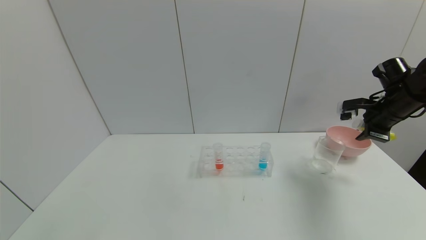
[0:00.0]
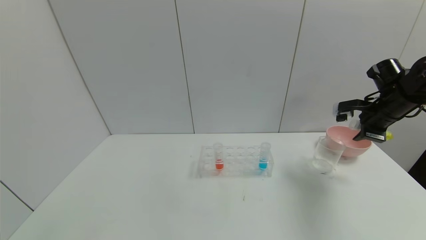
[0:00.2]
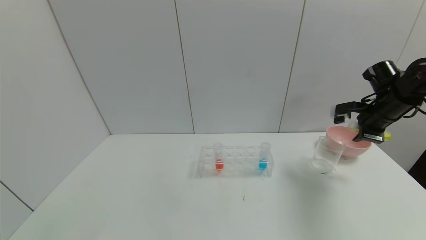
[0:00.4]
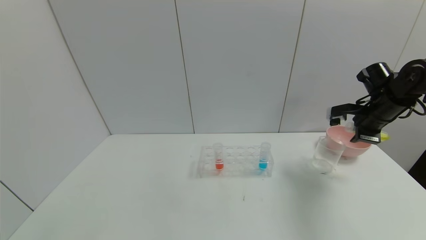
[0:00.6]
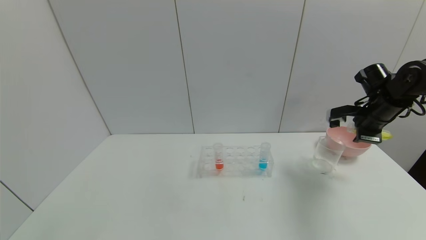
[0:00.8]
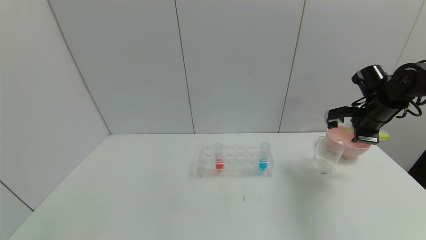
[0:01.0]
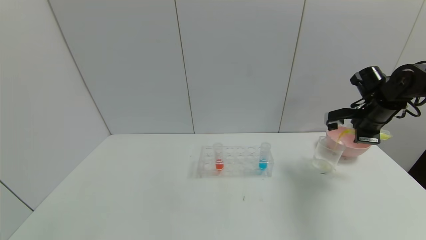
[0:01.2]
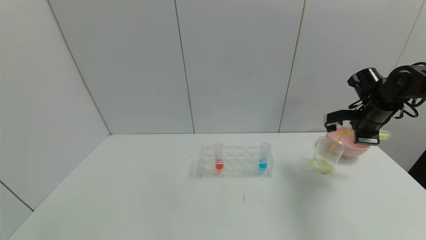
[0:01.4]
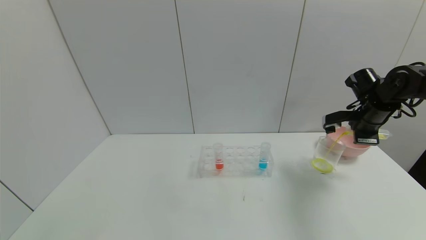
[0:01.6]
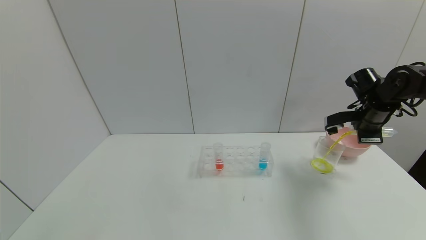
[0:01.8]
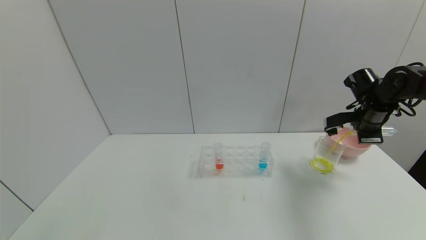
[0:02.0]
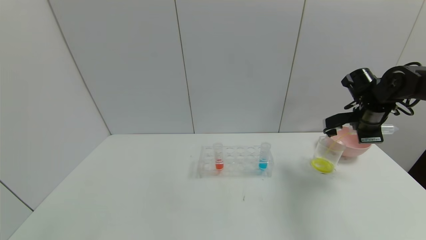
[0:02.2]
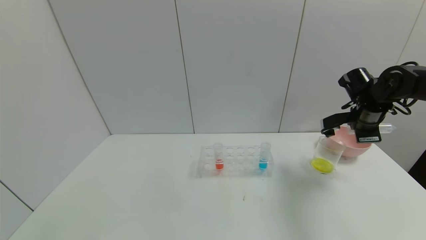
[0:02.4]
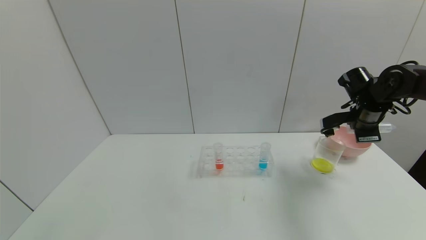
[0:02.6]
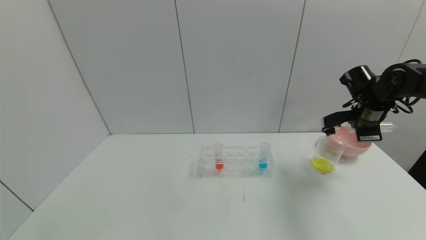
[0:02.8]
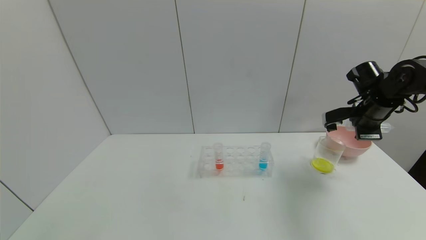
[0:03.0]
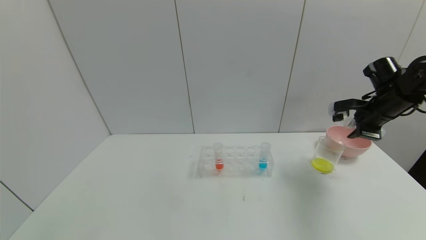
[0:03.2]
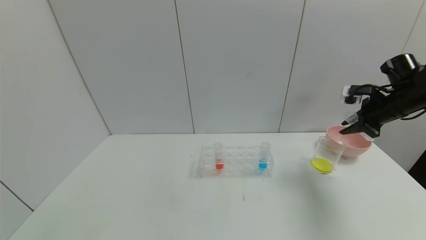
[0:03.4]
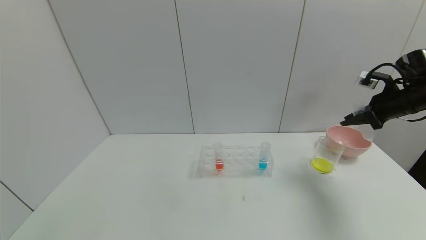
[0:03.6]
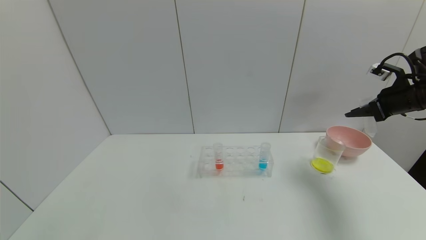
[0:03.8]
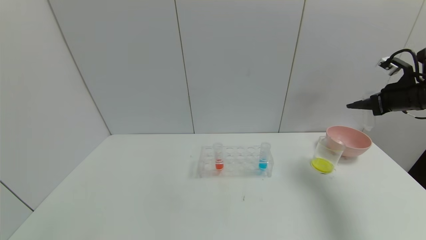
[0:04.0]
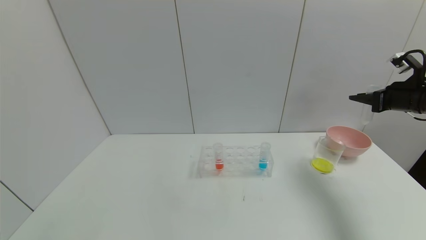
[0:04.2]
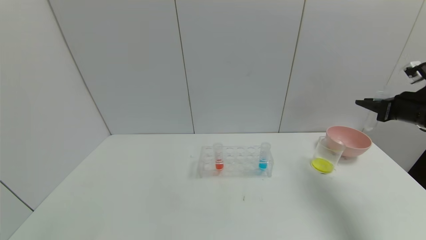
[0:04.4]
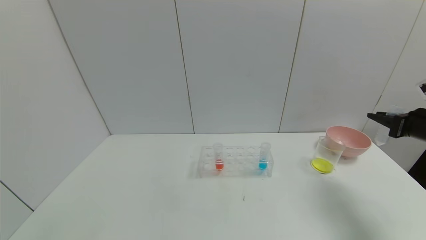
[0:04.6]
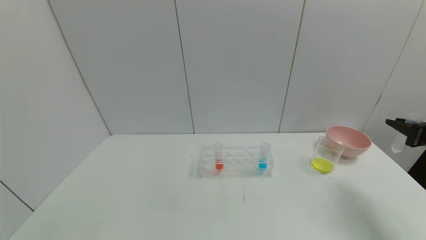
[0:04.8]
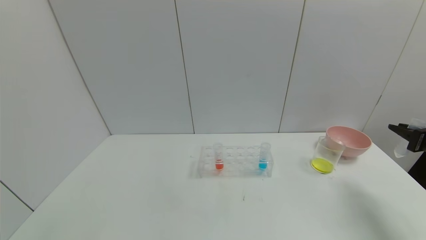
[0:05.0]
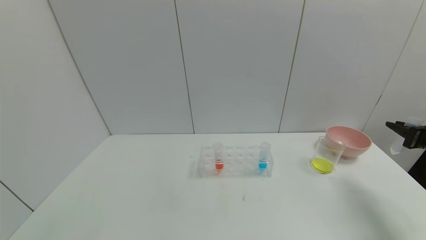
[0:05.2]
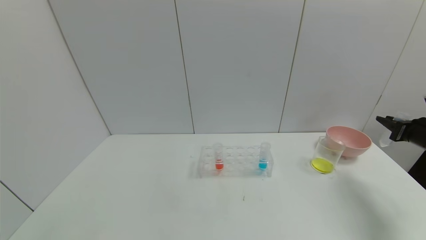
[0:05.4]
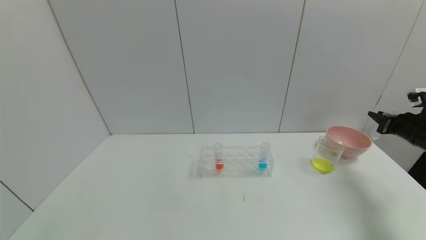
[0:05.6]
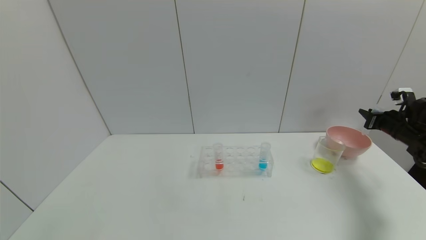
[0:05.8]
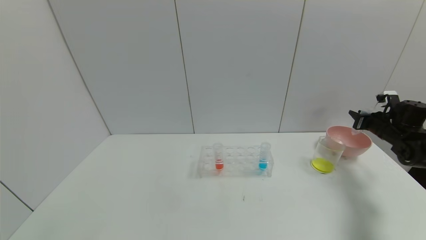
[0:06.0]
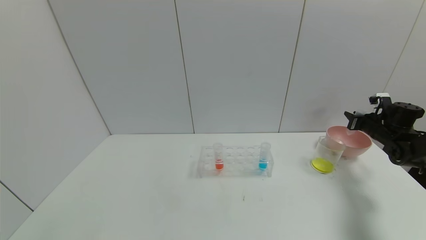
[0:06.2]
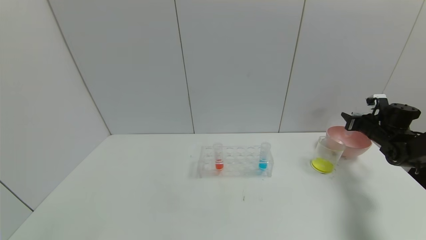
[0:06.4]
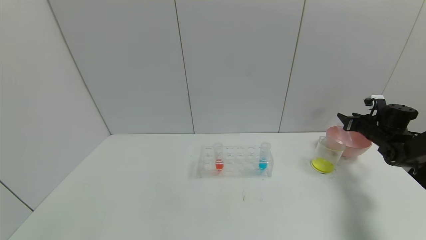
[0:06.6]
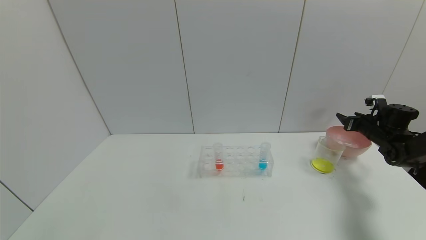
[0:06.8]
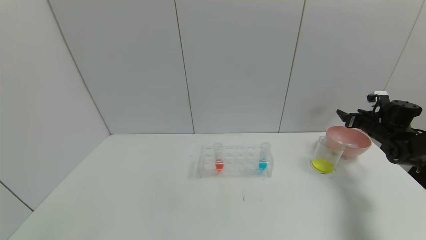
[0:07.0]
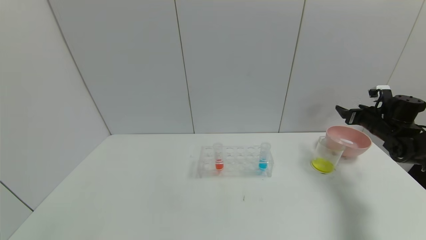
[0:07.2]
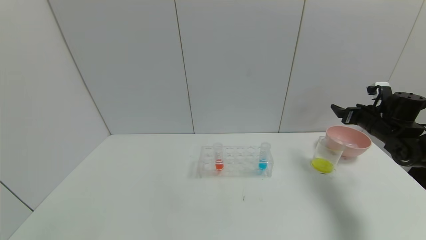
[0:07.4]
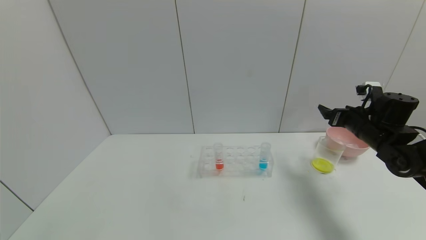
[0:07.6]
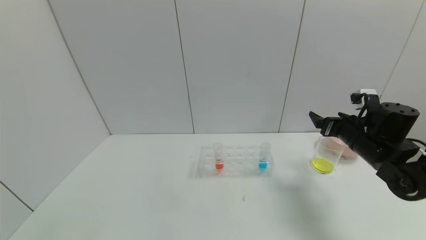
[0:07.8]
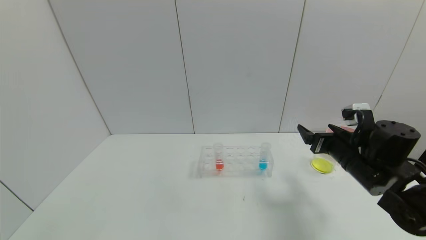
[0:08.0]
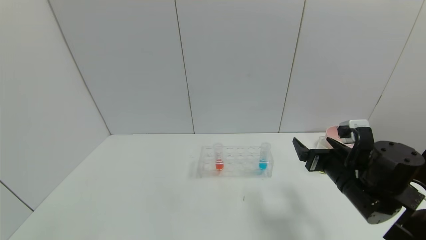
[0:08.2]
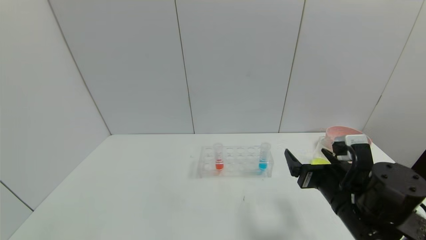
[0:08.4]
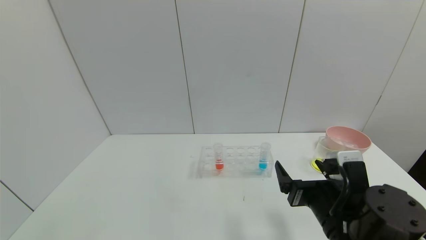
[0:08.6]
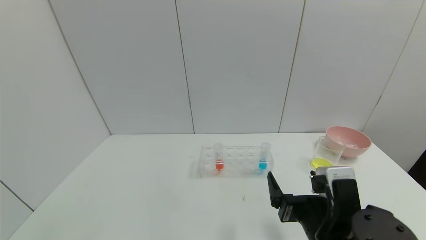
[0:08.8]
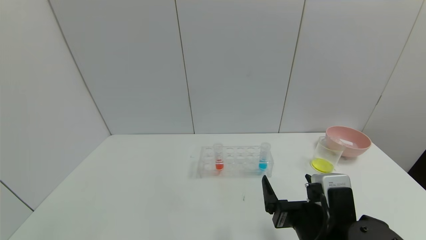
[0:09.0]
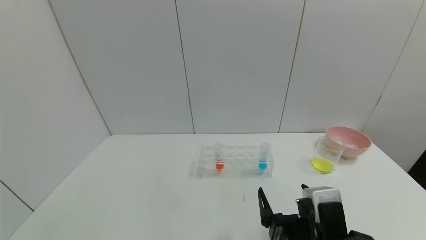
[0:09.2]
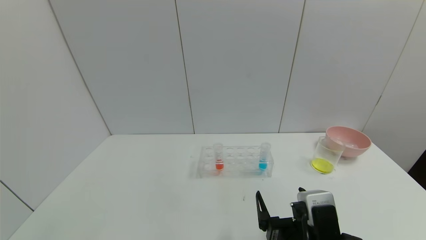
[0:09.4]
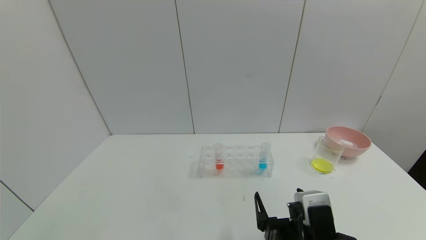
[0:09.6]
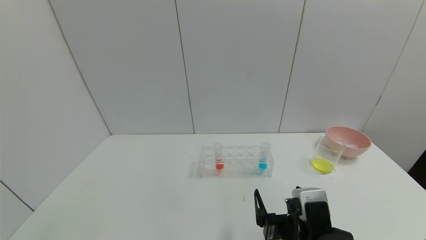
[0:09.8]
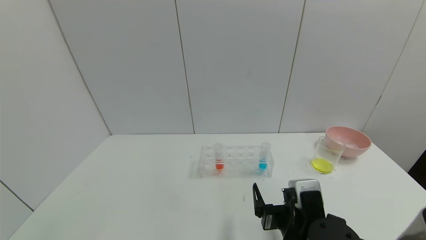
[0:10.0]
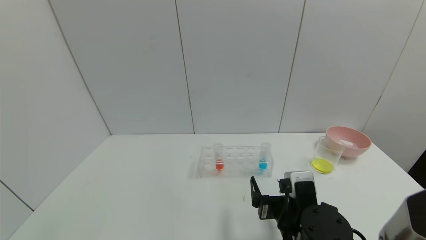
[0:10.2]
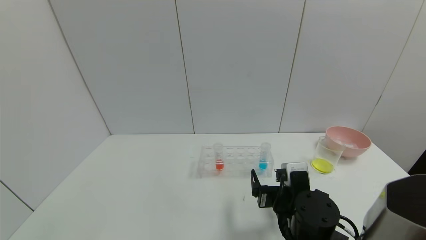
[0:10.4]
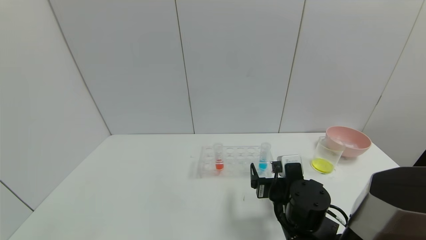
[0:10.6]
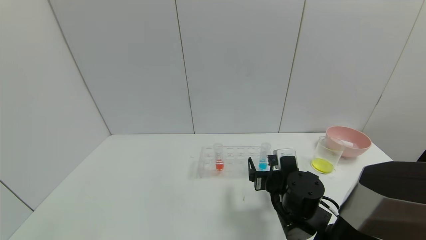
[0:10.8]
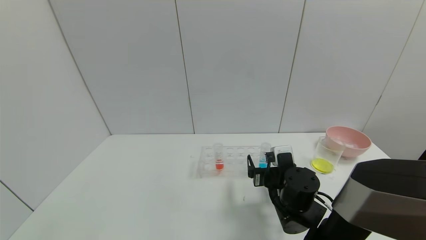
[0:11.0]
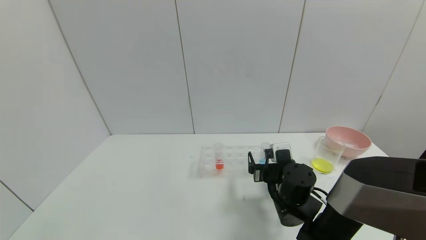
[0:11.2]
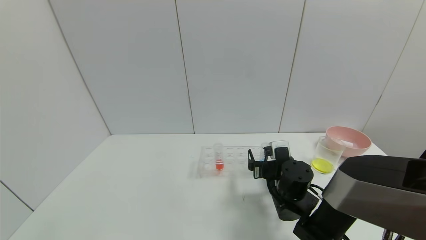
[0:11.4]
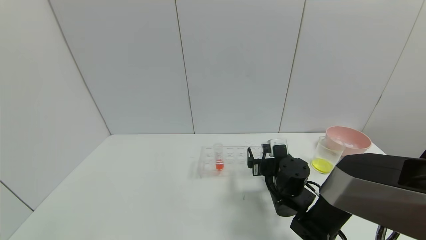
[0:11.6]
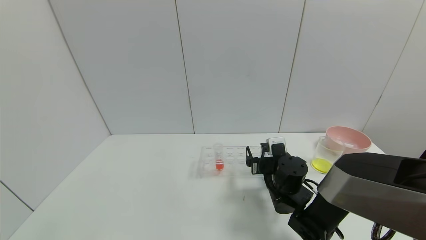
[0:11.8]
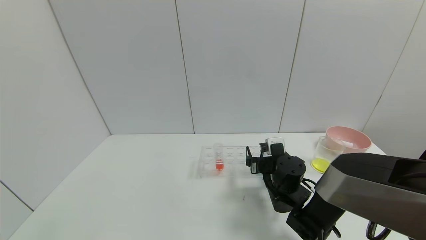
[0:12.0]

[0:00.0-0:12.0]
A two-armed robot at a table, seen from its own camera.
Task of the whole recording: pick up the test tube with yellow pigment and the test tube with blue pigment by grippers and pour them into the beaker.
Step, 0:00.0 to 0:03.0: Pour the yellow reagent into the graduated cylinder with the right gripper.
Step, 0:03.2 to 0:07.2: Place the test tube into the bowl with the right gripper.
0:00.0 to 0:01.6: The grippers move only a little.
0:01.6 to 0:03.0: The grippers move only a little.
0:03.0 to 0:04.4: The right gripper moves to the right and backward, approximately 10 cm.
0:04.4 to 0:06.0: The right gripper goes some 15 cm downward and forward.
0:06.0 to 0:07.6: The right gripper travels to the left and backward by approximately 15 cm, and opens its fingers.
0:07.6 to 0:09.0: The right gripper travels backward and to the left by about 30 cm.
0:09.0 to 0:10.4: The right gripper is displaced forward by some 5 cm.
0:10.4 to 0:12.0: The right gripper heads forward, covering about 10 cm.

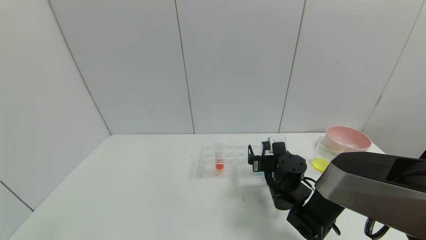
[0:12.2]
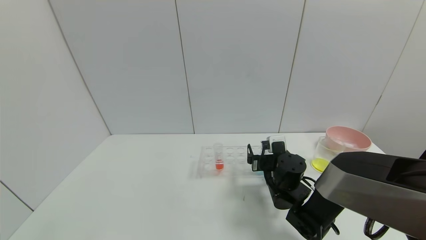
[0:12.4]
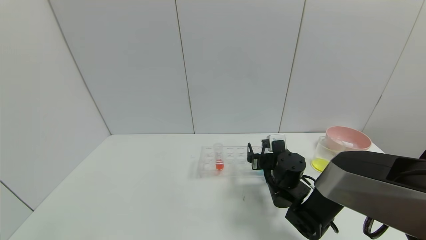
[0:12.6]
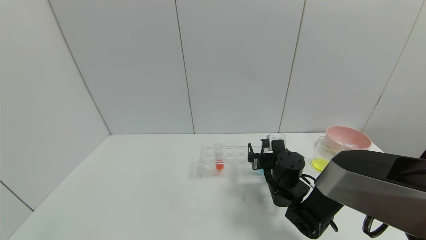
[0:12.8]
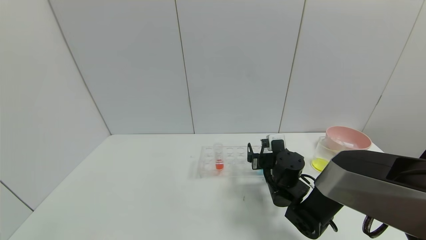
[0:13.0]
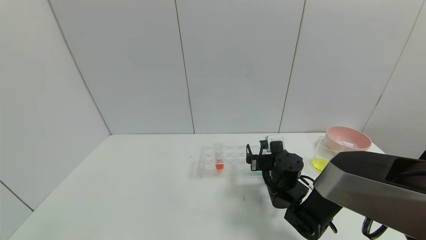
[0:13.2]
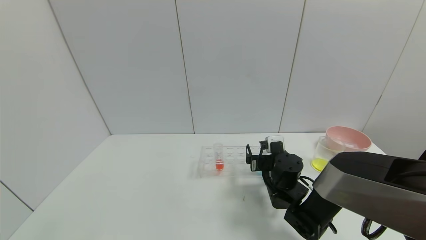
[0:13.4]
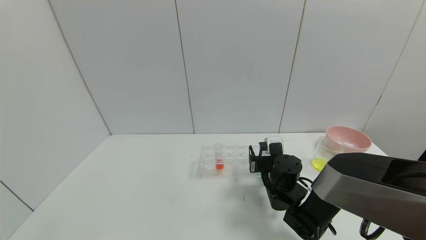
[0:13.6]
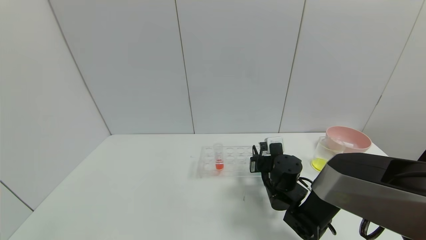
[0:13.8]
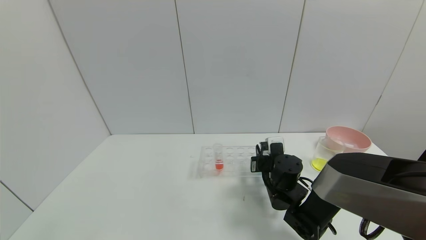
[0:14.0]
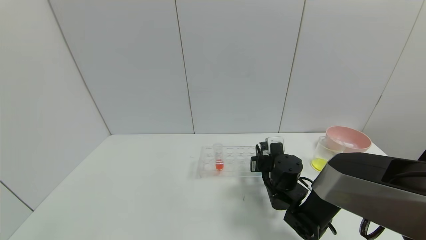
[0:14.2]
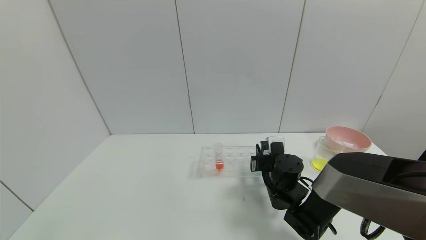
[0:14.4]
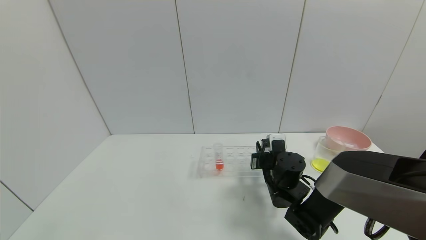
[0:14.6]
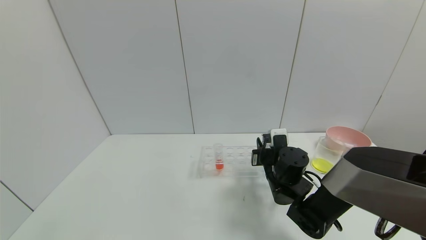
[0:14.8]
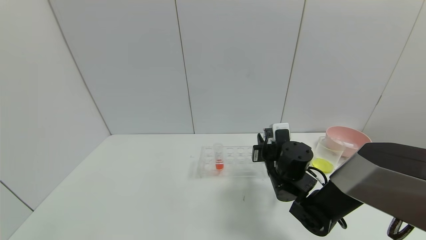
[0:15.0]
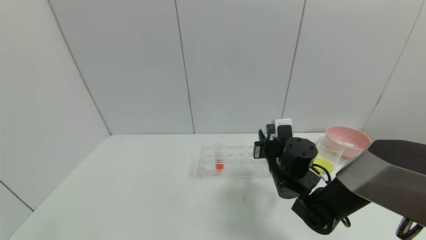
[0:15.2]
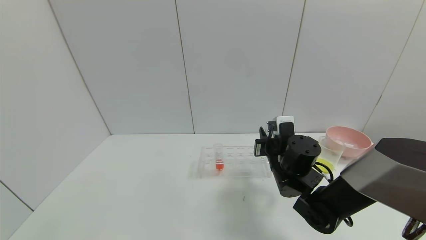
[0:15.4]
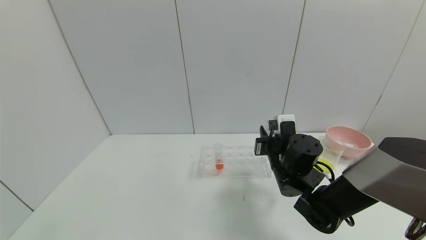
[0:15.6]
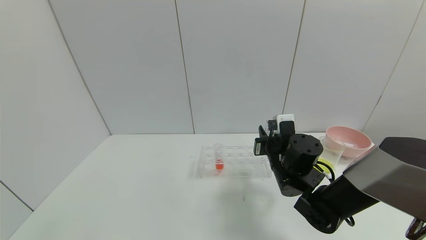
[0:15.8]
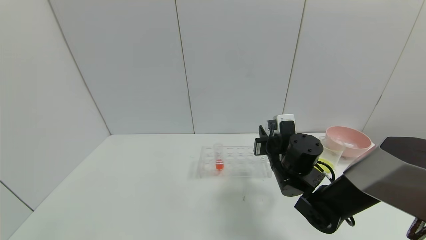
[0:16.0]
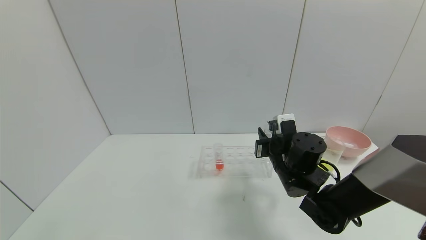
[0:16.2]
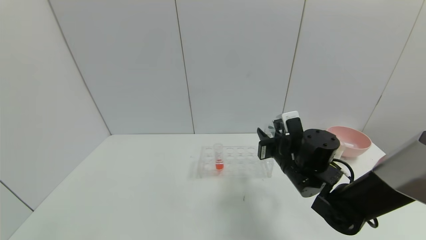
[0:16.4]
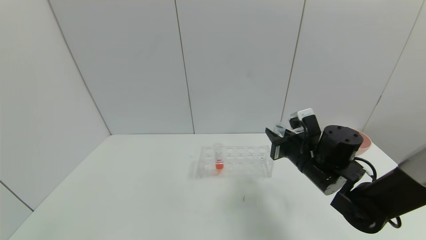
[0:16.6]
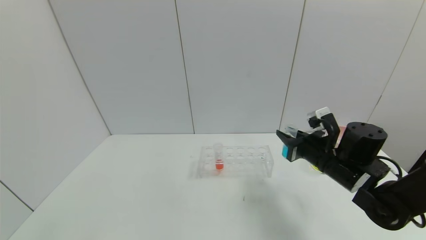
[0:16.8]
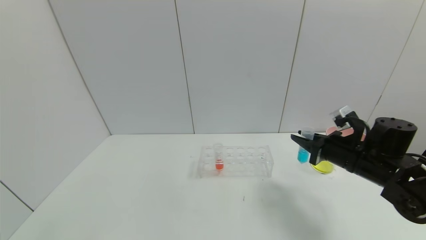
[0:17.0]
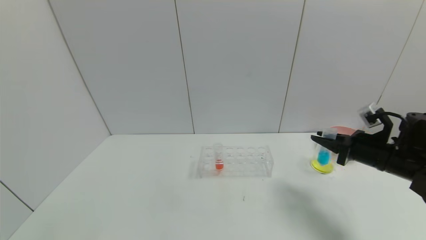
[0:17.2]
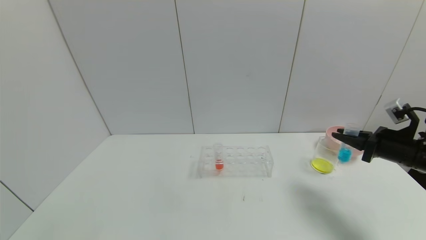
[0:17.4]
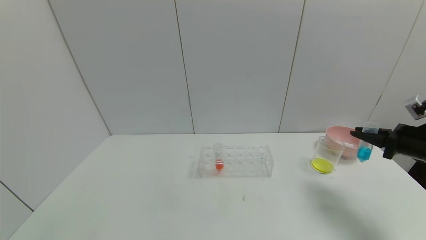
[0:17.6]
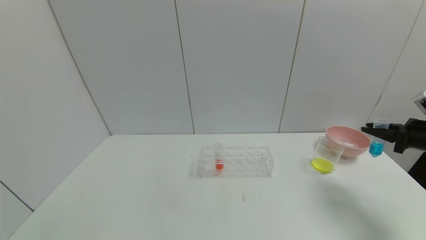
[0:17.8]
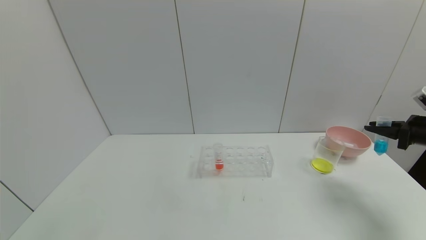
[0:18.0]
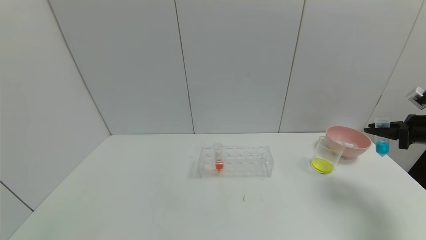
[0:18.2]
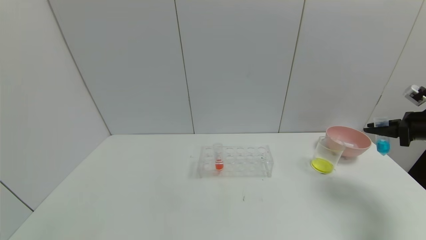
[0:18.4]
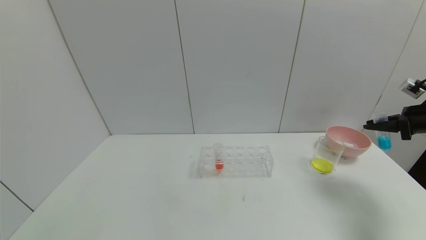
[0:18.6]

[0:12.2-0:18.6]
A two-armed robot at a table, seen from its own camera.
Task of the whole recording: pick up the test tube with yellow pigment and the test tube with blue pigment by grippers and pour them into the beaker.
Step, 0:12.2 to 0:14.2: Grasp the blue reagent with the right gripper.
0:12.2 to 0:13.8: The right gripper closes up.
0:13.8 to 0:15.4: The right gripper shifts about 5 cm upward.
0:15.4 to 0:17.0: The right gripper travels to the right by roughly 15 cm.
0:17.0 to 0:18.6: The right gripper heads to the right, covering approximately 20 cm.
